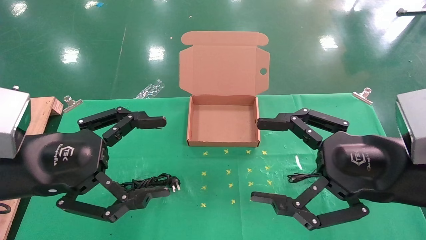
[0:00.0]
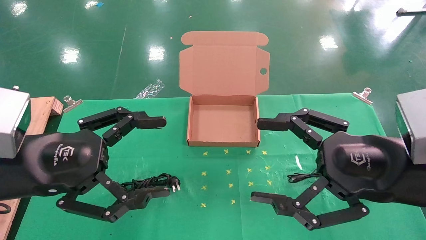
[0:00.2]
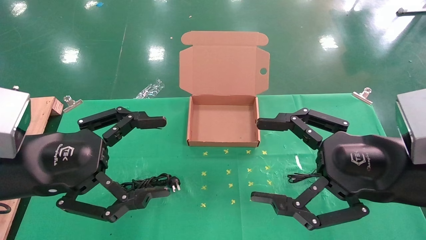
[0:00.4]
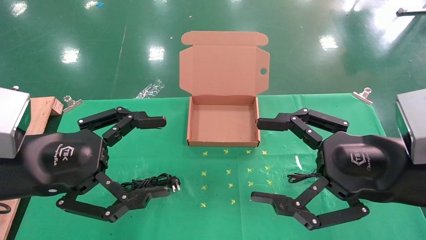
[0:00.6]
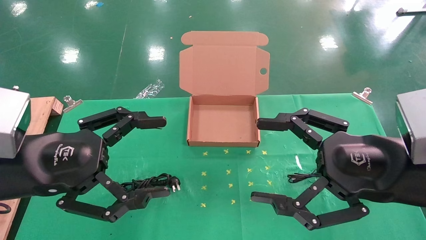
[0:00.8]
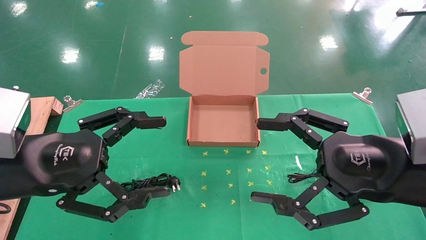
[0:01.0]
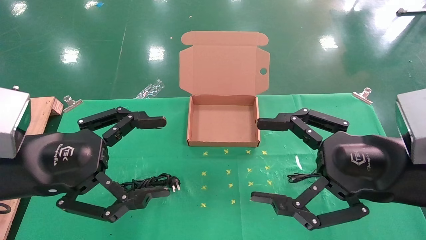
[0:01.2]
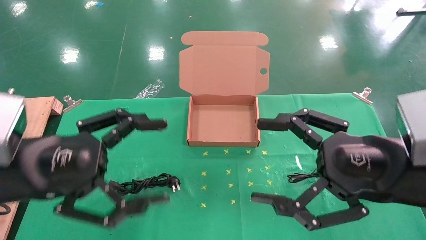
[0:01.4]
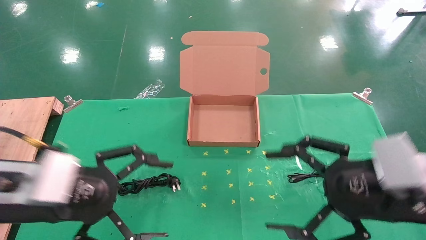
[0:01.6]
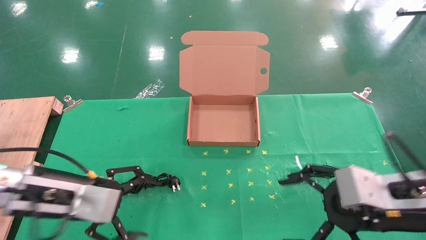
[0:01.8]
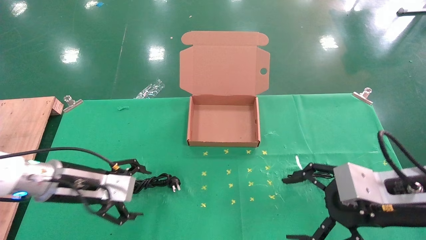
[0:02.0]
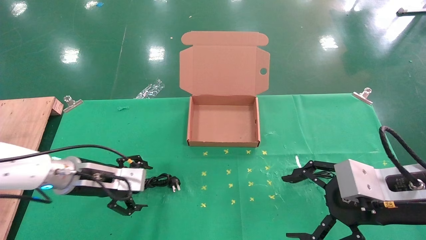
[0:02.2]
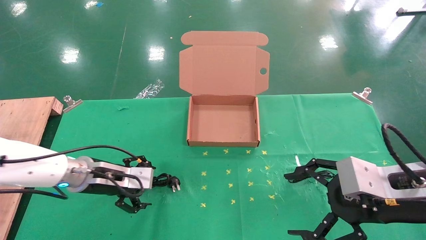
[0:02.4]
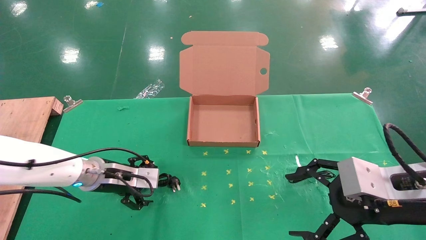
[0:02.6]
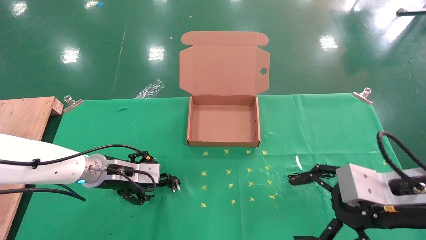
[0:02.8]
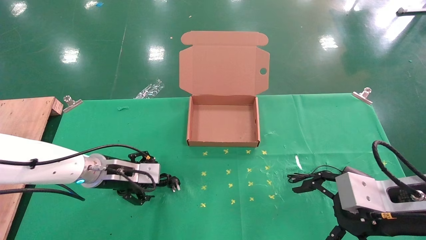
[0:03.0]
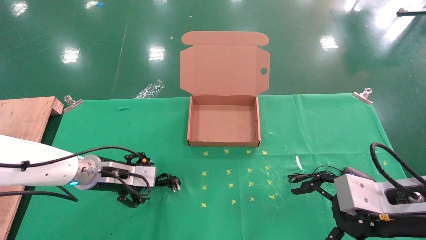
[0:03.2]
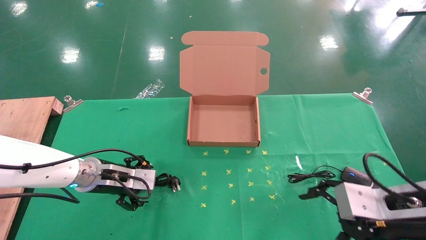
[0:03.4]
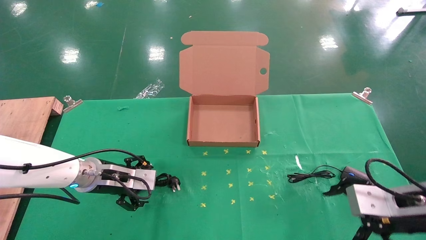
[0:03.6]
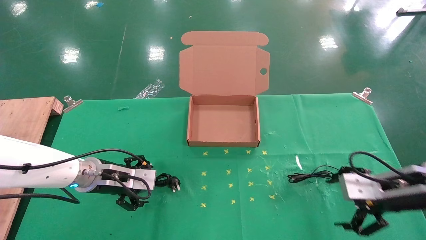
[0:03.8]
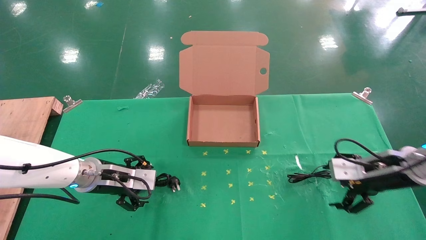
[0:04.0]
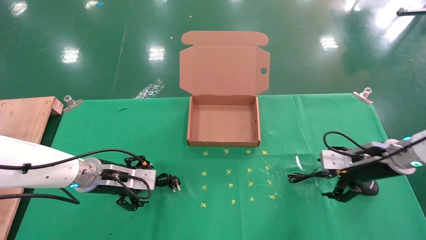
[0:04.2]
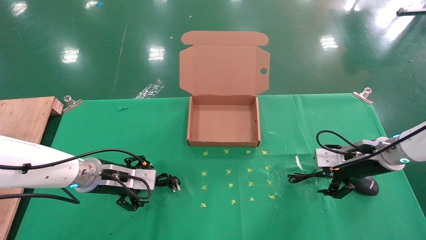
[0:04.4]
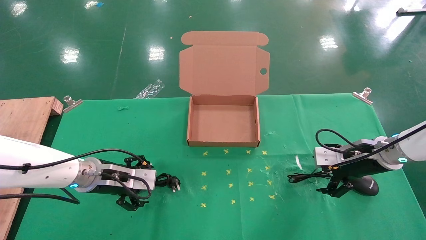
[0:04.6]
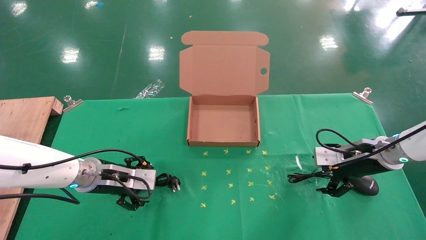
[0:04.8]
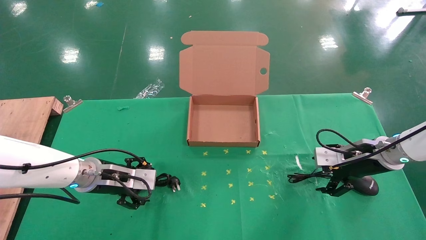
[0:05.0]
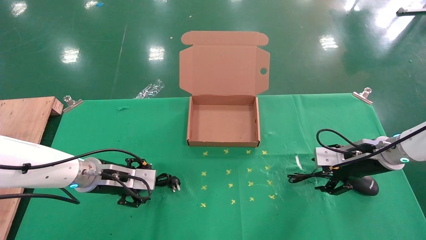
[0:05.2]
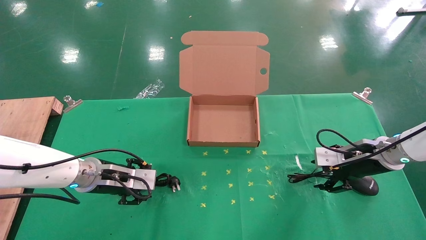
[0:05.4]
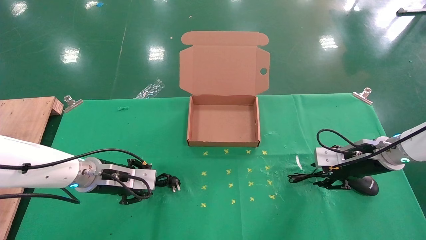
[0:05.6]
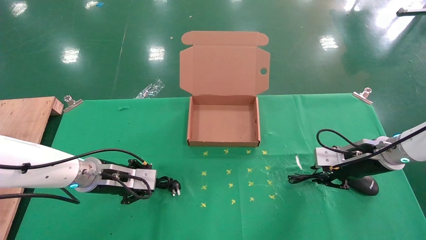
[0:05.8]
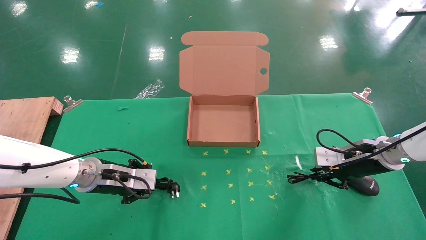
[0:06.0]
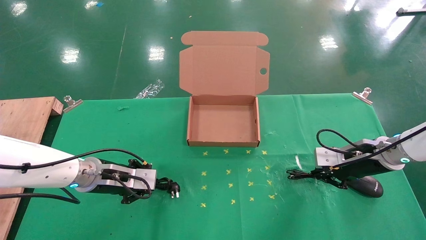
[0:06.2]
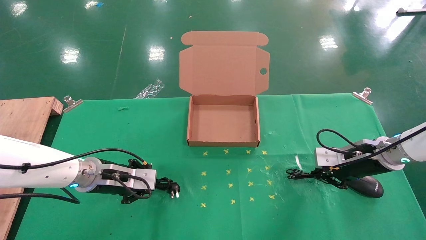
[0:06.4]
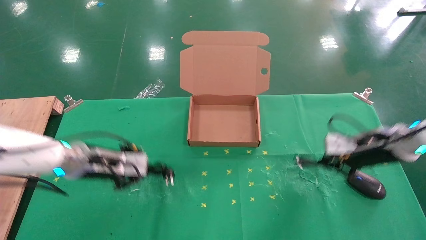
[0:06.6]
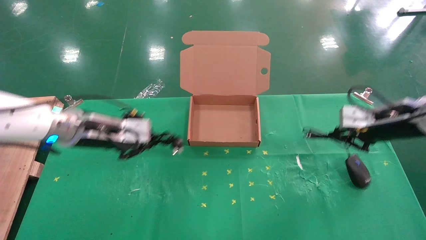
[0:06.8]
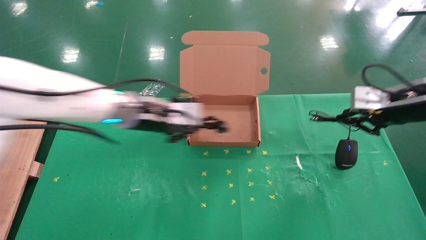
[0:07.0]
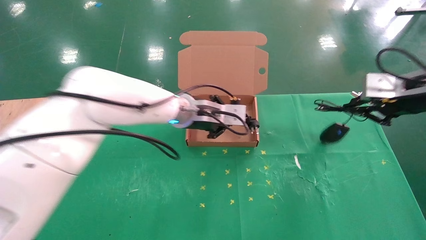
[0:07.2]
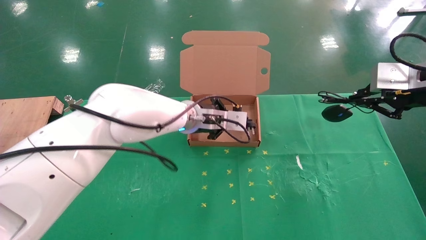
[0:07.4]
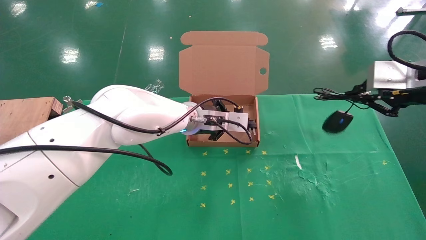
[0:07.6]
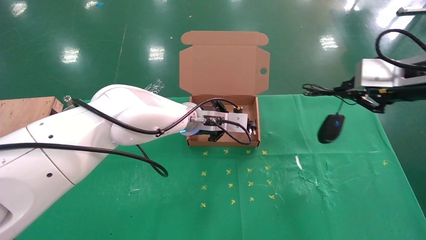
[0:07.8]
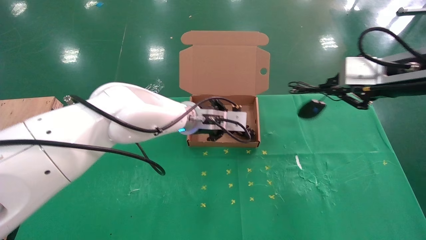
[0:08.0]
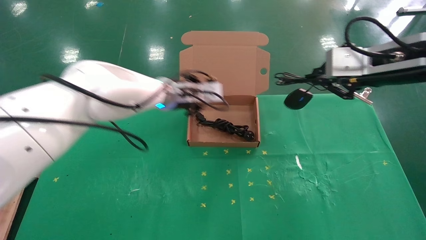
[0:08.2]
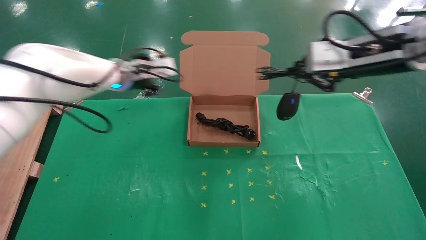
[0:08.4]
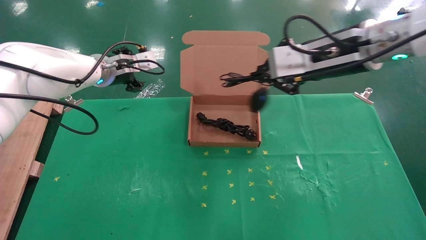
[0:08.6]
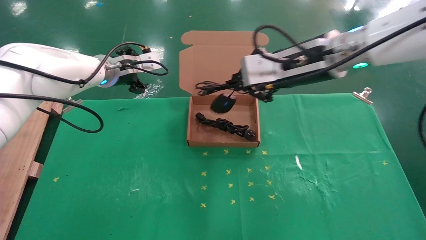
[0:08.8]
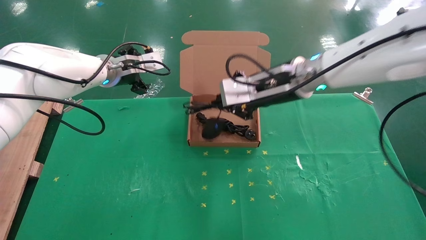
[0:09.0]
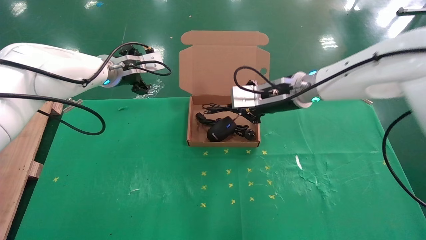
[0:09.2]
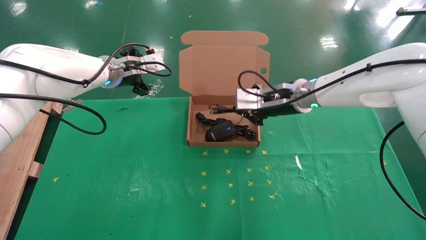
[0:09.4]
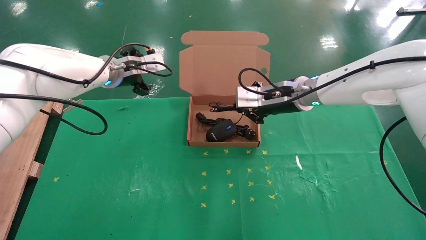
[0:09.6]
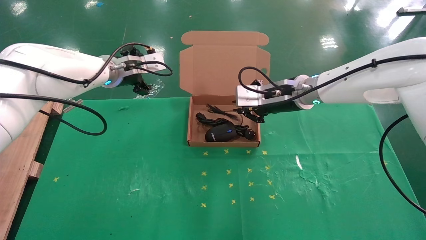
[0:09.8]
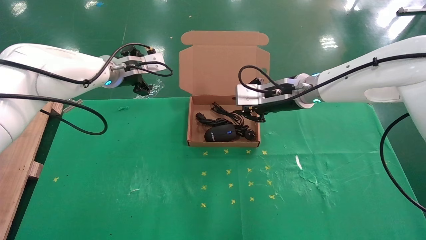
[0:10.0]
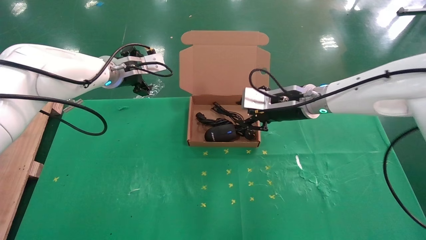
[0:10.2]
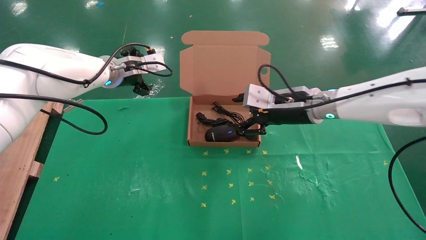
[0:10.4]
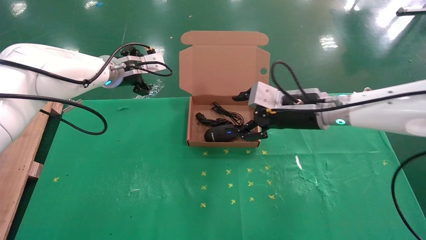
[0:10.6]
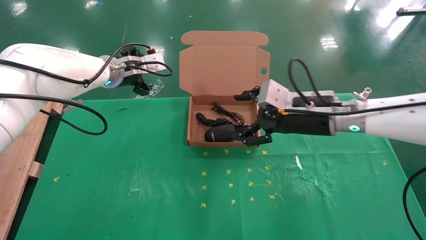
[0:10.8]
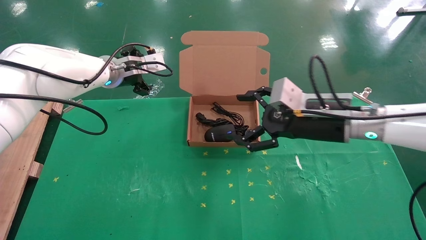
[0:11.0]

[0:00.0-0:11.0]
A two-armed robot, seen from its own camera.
Task of the whole recording: grasp data cable left put into box grasp mouse right put into box.
Step, 0:01.6 to 0:06.2: Simultaneously pick up the mouse and power cord from the accessory packaging area.
Step, 0:06.4 to 0:10.0: Place the mouse and power cord into the box.
0:00.0 to 0:01.6: The left gripper is displaced downward by some 5 cm.
0:01.6 to 0:03.2: The right gripper moves approximately 5 cm. The left gripper moves forward and downward, approximately 15 cm.
0:03.2 to 0:04.8: The right gripper is displaced forward by roughly 20 cm.
0:04.8 to 0:06.2: The right gripper closes up. The left gripper closes.
0:06.2 to 0:07.8: The left gripper is displaced to the right and upward by roughly 25 cm; the right gripper moves upward and backward, about 20 cm.
0:07.8 to 0:09.4: The left gripper heads to the left and upward, covering some 20 cm, and opens its fingers. Meanwhile the right gripper heads to the left, forward and downward, covering approximately 25 cm.
0:09.4 to 0:11.0: The right gripper goes about 10 cm backward and to the right, and opens its fingers.

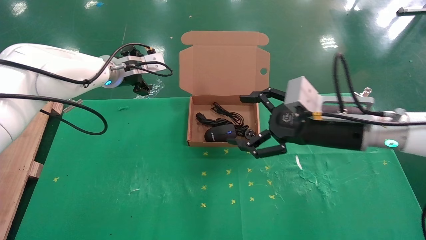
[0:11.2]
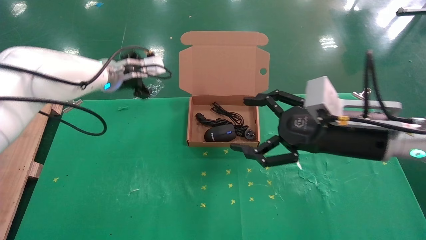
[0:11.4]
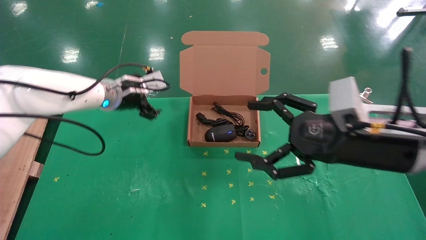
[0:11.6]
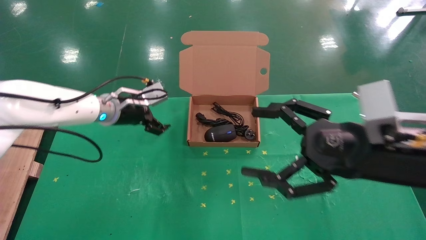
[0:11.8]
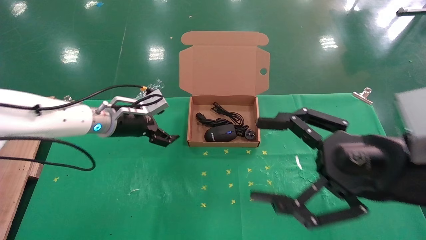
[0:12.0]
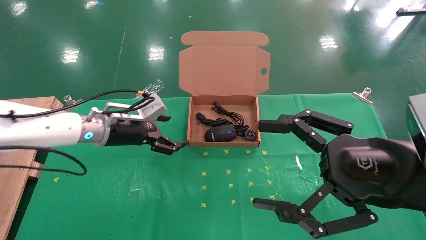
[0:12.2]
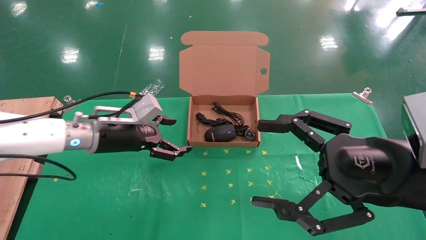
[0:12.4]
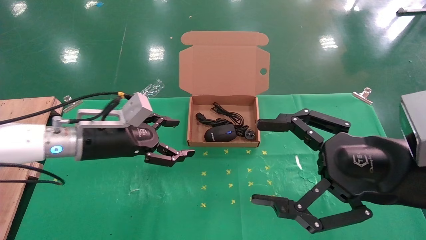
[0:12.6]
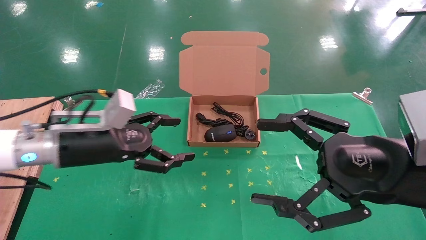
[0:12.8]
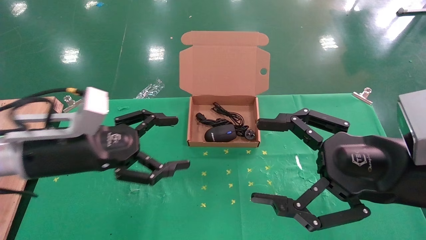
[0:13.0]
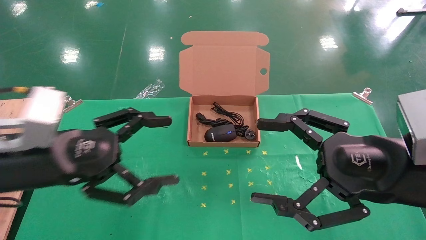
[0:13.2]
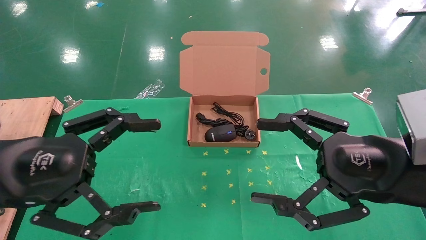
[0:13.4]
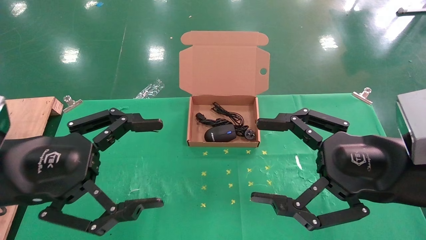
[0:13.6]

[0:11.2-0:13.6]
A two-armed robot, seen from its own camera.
Task of the whole recording: grasp data cable left put into box grasp mouse right put into box.
0:11.2 to 0:12.4: The right gripper shifts about 15 cm backward; the left gripper shifts about 15 cm backward and downward.
0:12.4 to 0:13.6: The left gripper shifts some 20 cm backward.
